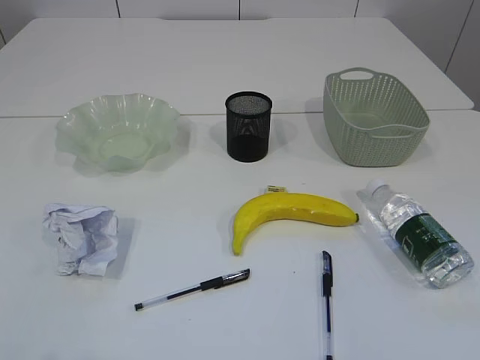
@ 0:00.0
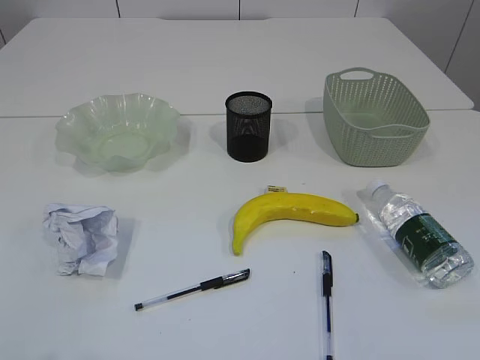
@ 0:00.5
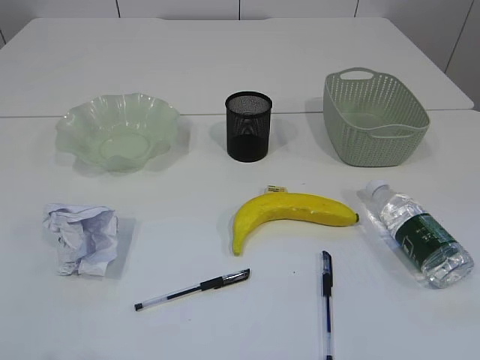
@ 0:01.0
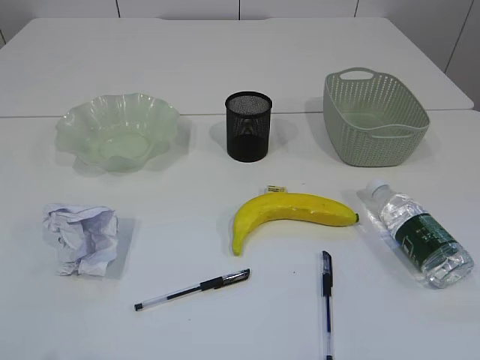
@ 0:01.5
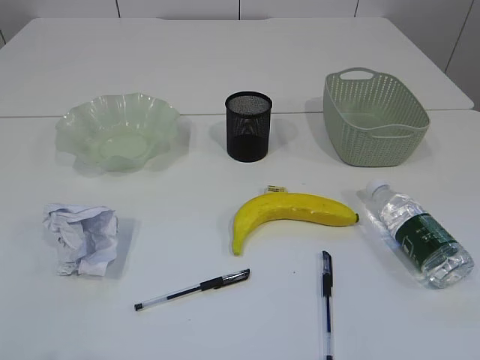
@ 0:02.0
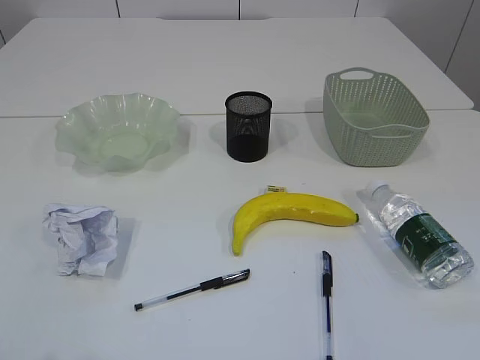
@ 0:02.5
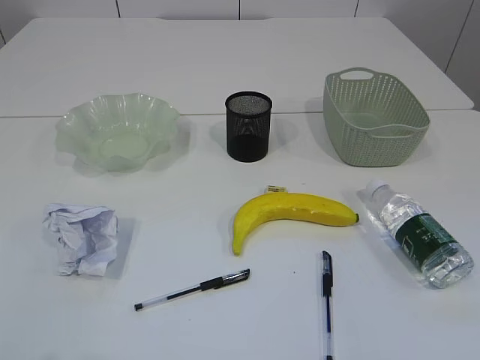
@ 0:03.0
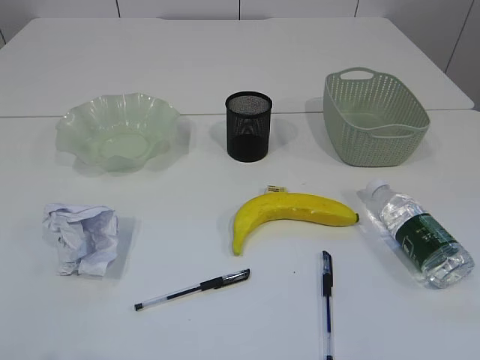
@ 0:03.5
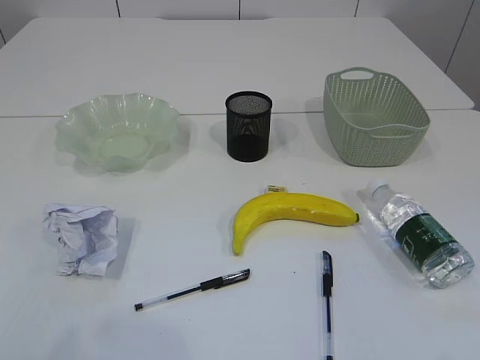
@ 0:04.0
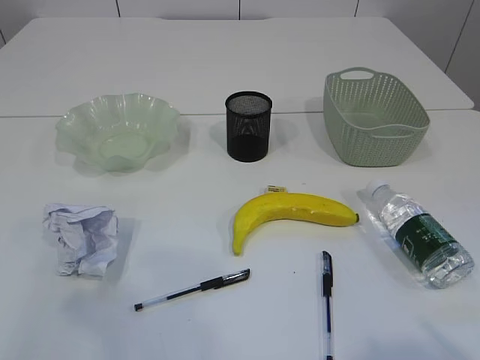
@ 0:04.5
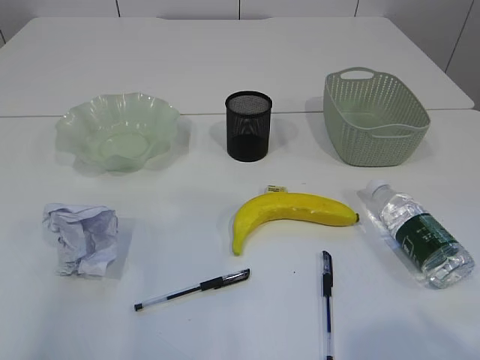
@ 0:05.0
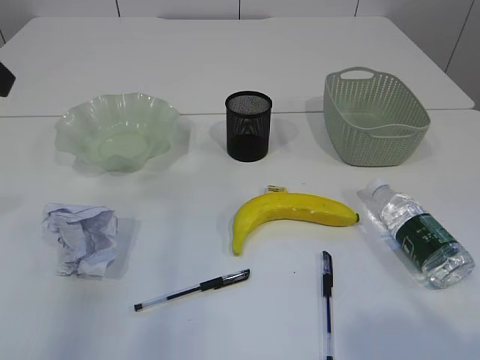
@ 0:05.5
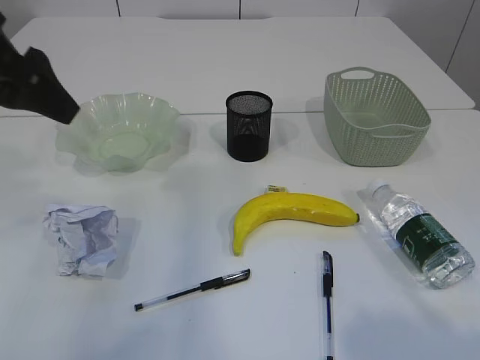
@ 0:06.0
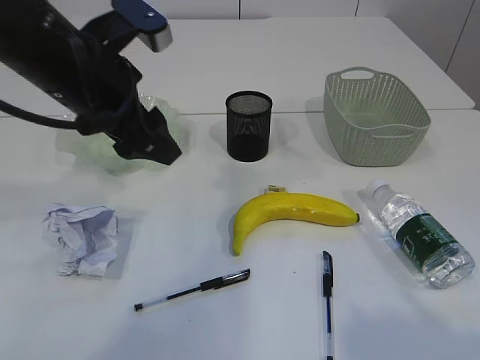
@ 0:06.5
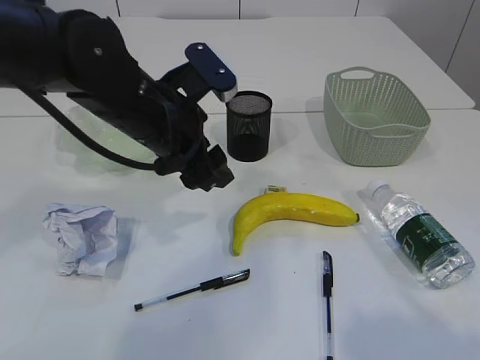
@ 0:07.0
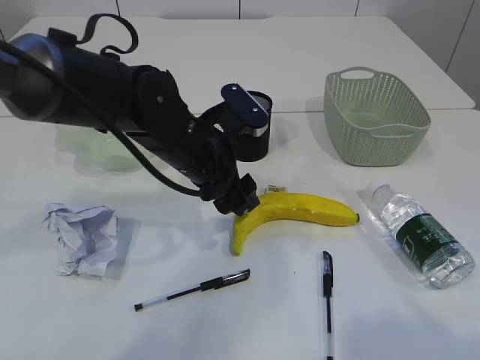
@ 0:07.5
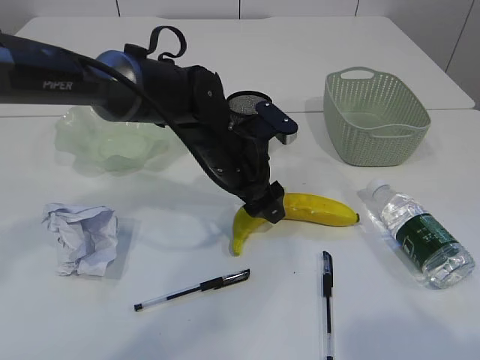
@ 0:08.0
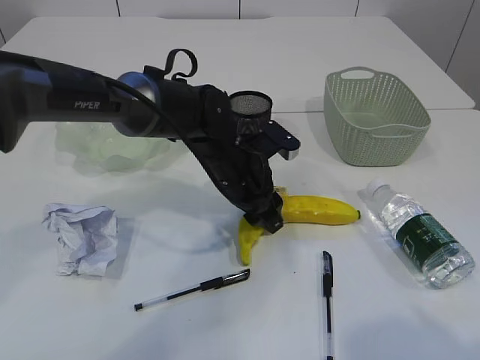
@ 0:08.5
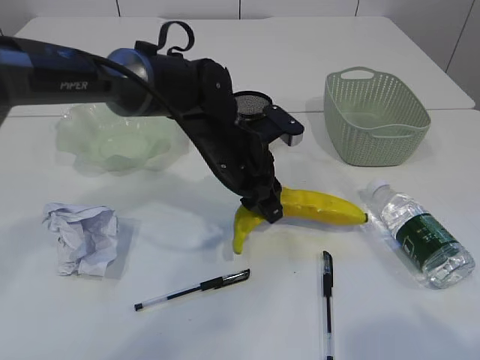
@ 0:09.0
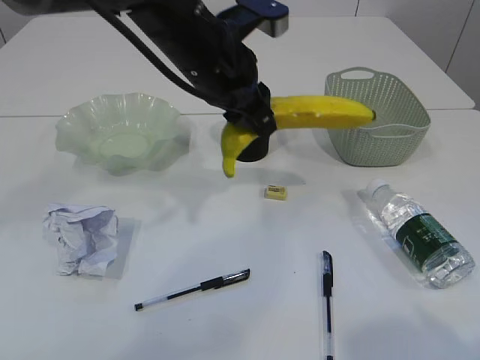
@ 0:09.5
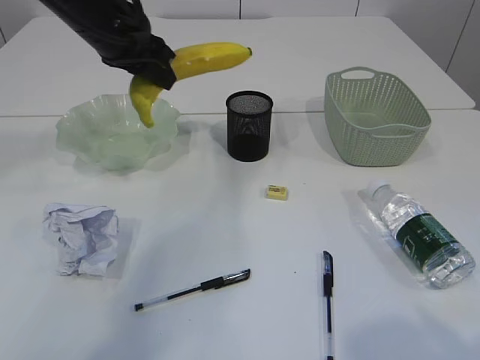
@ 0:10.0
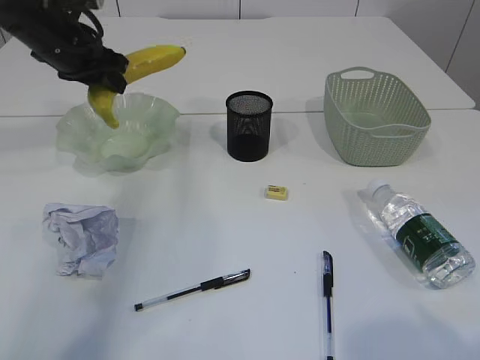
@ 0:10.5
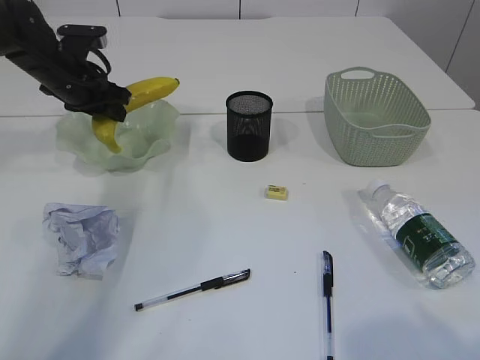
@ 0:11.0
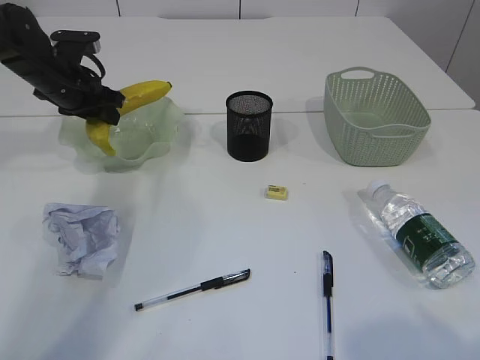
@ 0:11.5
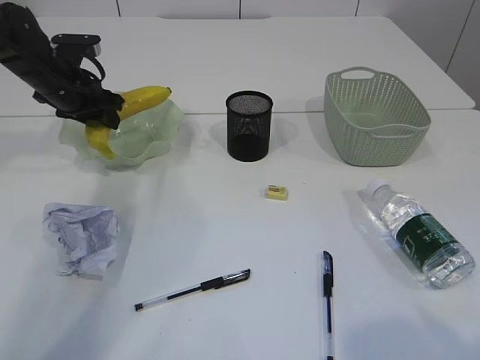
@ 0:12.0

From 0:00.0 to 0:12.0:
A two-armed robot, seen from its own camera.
From 0:04.0 to 0:06.0: The left gripper heads forward, covering some 30 cm. Meanwhile the right gripper goes roughly 5 cm forward.
From 0:06.0 to 0:08.0: The left gripper heads to the right and downward, covering about 30 cm.
From 0:08.0 to 0:10.0: The left gripper travels upward and to the left by approximately 20 cm, and closes.
From 0:10.0 to 0:12.0: The left gripper shifts approximately 15 cm downward, to the left and forward.

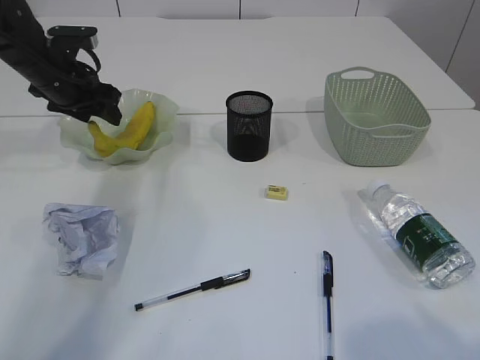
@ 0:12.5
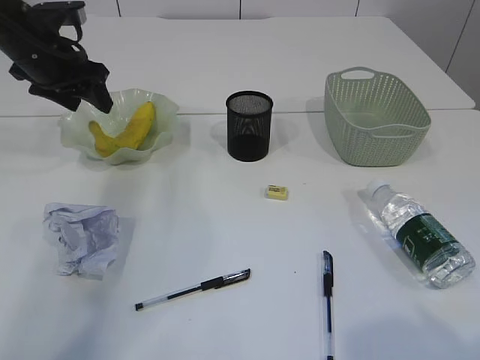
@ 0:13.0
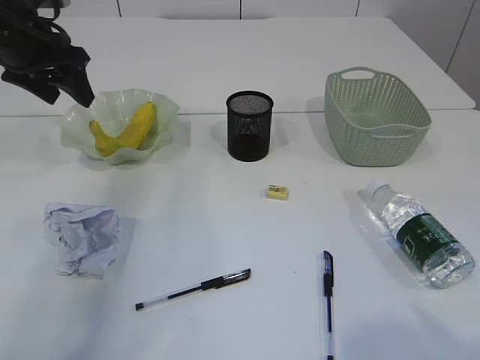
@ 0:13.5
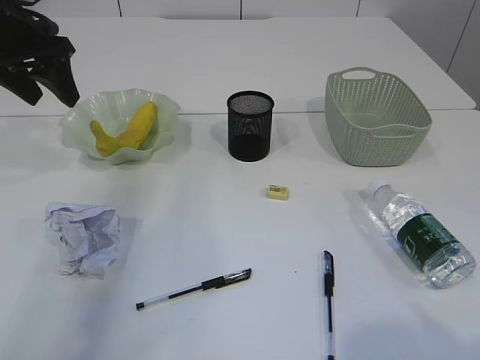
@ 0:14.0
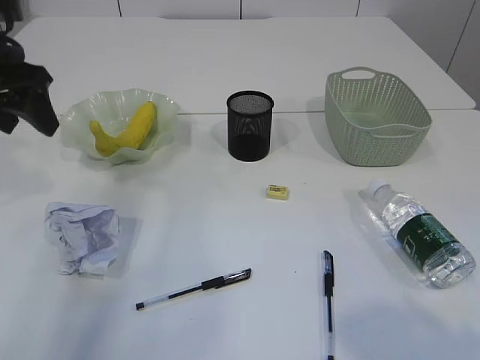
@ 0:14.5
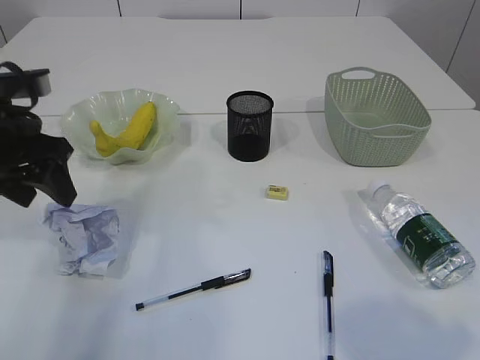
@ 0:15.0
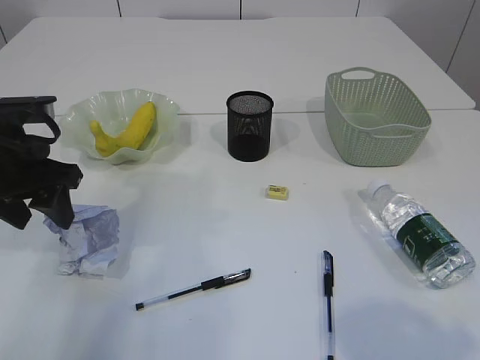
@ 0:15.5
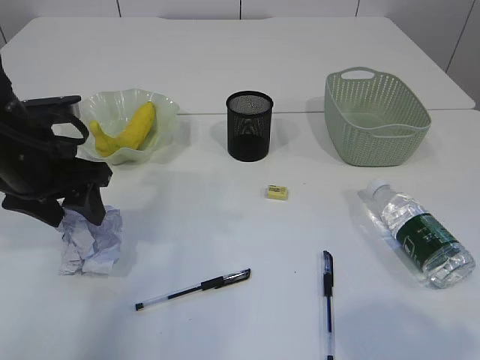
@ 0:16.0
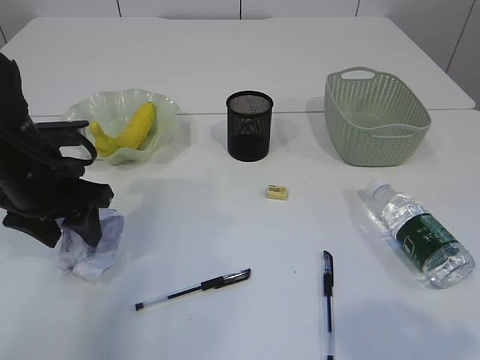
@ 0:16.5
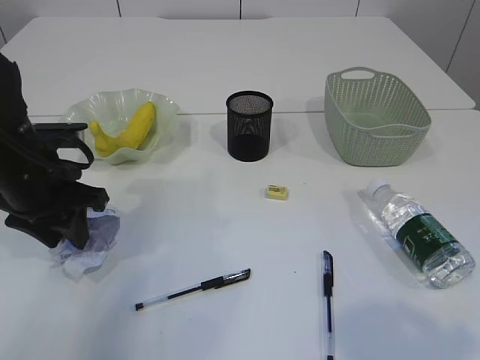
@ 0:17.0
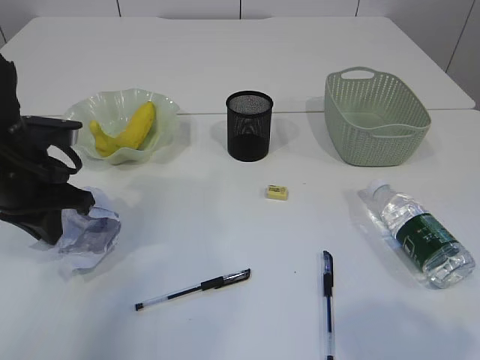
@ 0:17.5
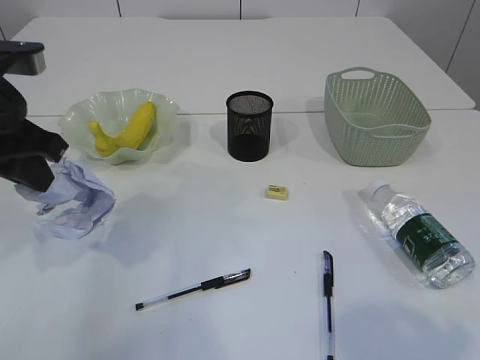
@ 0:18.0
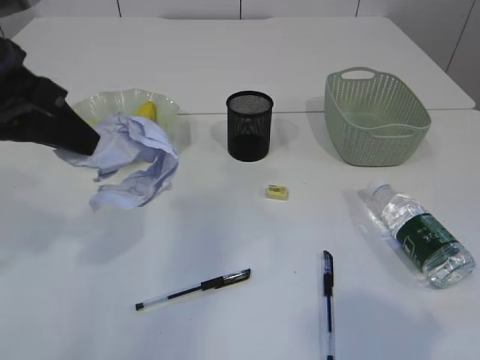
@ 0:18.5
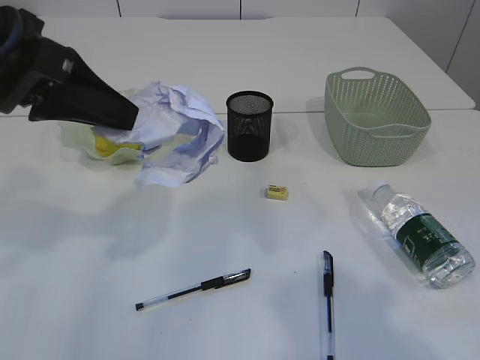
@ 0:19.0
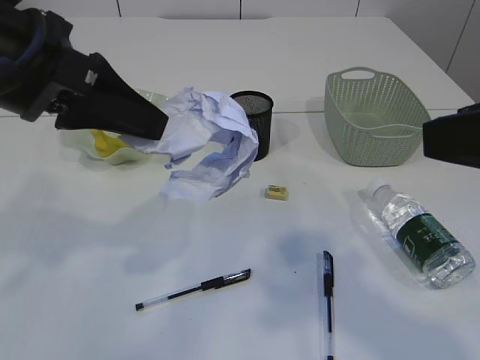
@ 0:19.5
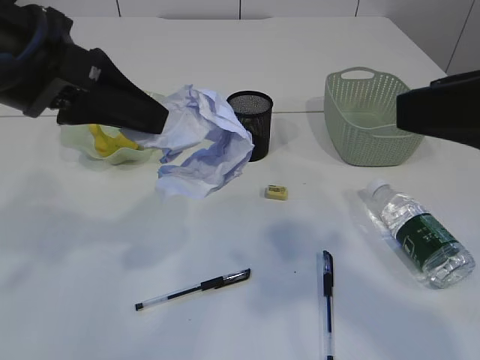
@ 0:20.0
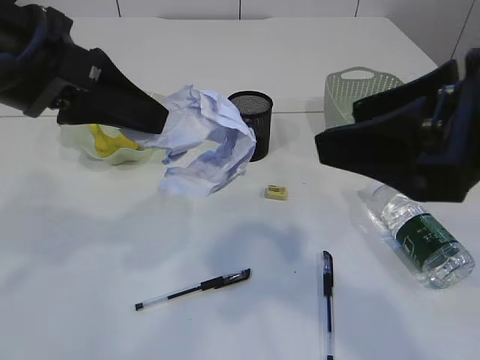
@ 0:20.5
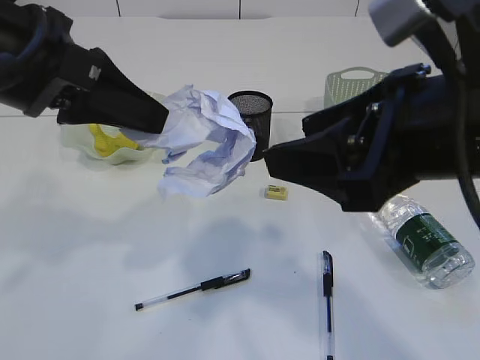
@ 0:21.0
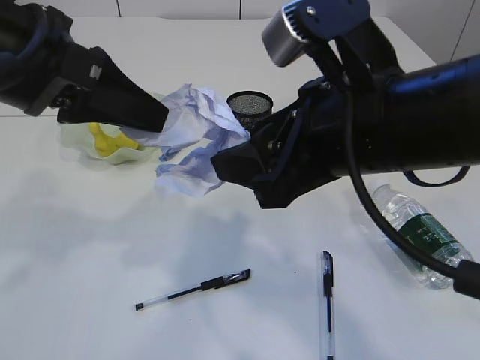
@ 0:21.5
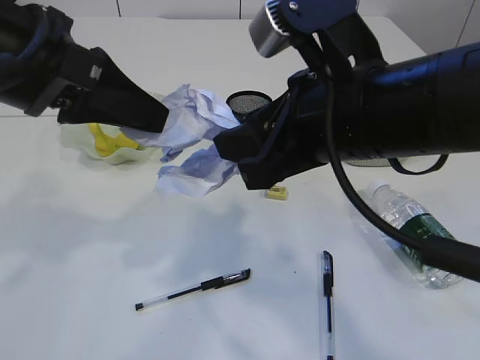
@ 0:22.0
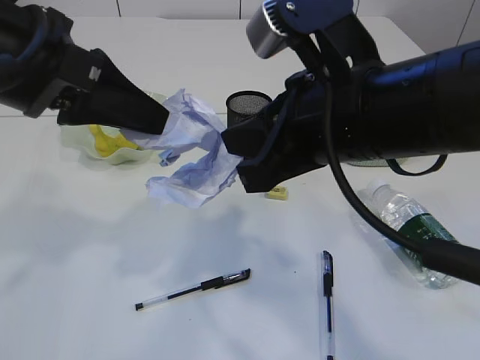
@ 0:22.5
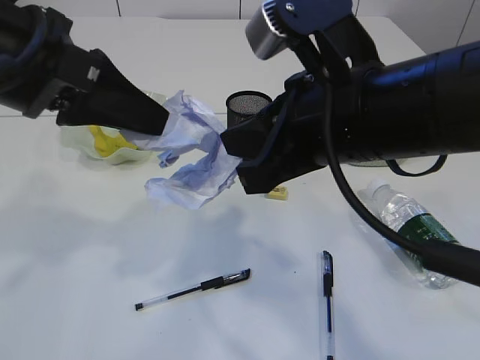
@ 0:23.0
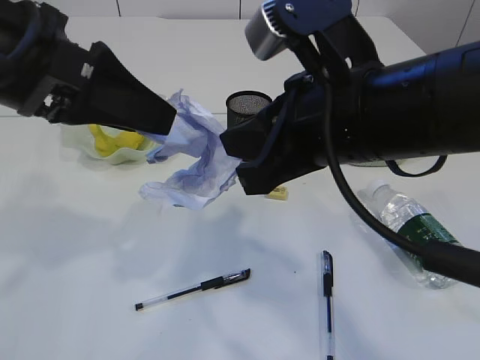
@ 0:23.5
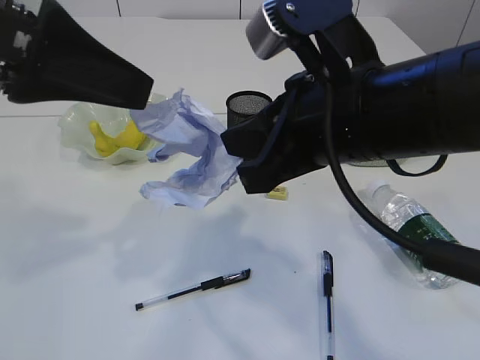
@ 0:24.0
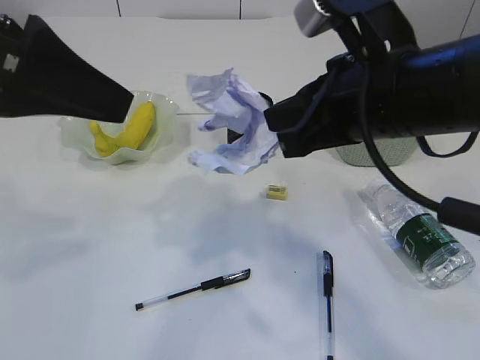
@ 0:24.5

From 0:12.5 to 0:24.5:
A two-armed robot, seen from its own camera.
Step, from 0:13.5 to 0:18.0: Pick up the waste paper.
Step, from 0:18.5 to 0:24.5: Hand over the waste paper.
From 0:12.5 to 0:14.5: The left gripper is displaced backward and upward by some 15 cm.
From 0:14.5 to 0:16.5: The left gripper moves downward and to the right, roughly 15 cm.
From 0:16.5 to 0:18.5: The left gripper is displaced upward and backward by roughly 15 cm, and closes up.
From 0:18.5 to 0:20.5: The right gripper heads forward and to the left, covering roughly 15 cm.
From 0:20.5 to 0:22.5: The right gripper moves to the left and forward, some 10 cm, and closes up.
From 0:22.5 to 0:24.5: The left gripper shifts by roughly 5 cm, and opens up.

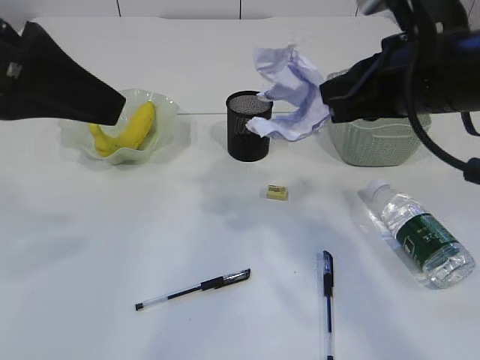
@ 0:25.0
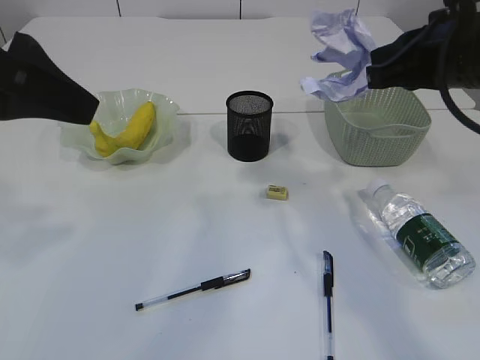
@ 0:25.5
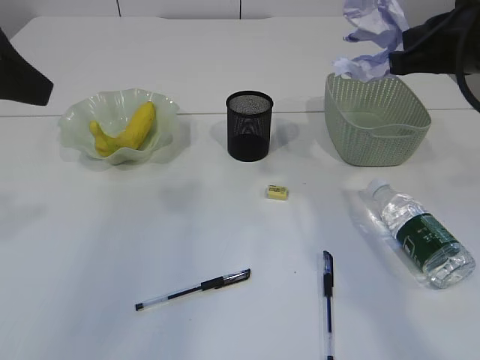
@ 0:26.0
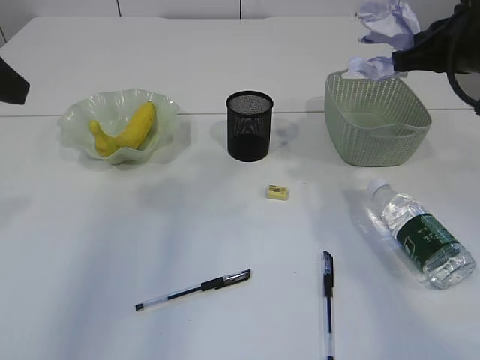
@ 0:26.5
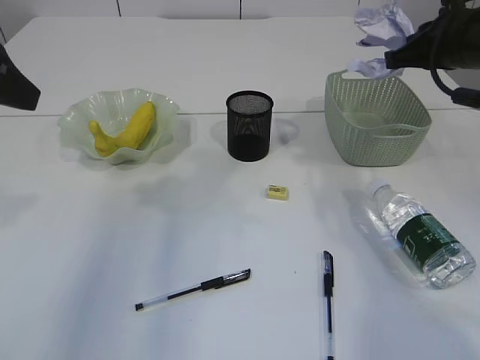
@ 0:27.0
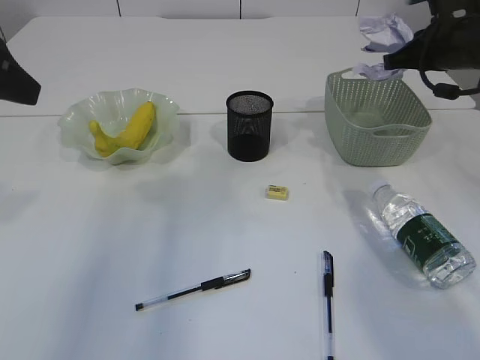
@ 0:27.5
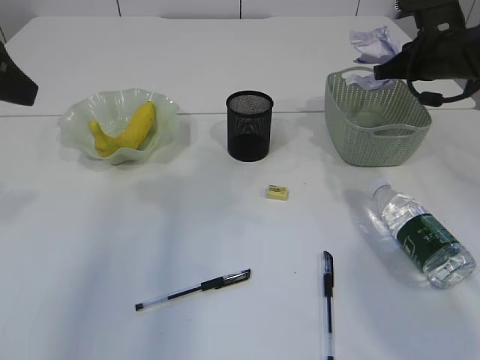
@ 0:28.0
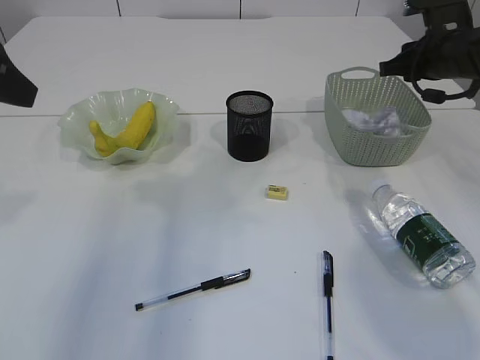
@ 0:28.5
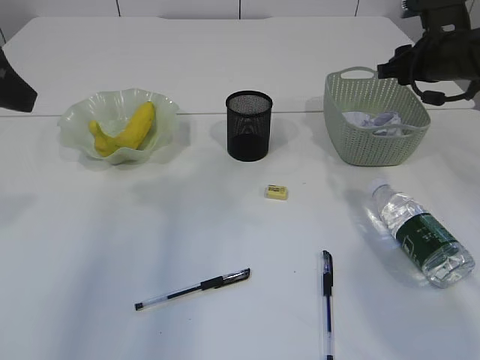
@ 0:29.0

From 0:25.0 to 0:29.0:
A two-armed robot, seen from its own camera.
Step, from 0:25.0 to 0:29.0: Place the waste paper in the basket.
From 0:25.0 to 0:27.0: The right gripper heads forward and to the right, covering approximately 15 cm, while the left gripper is displaced to the left and forward by approximately 10 cm.
From 0:27.0 to 0:29.0: The right gripper shifts approximately 10 cm forward and downward, and opens.
